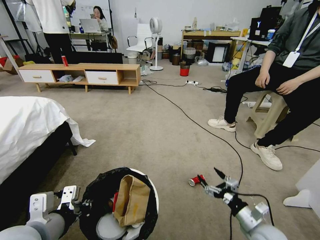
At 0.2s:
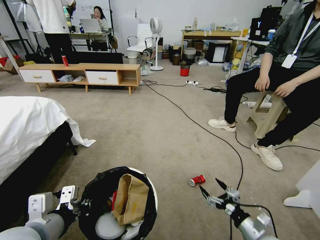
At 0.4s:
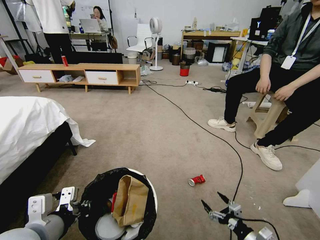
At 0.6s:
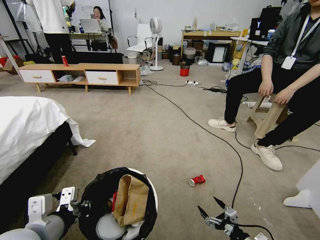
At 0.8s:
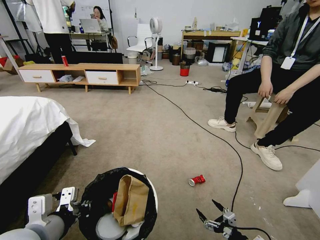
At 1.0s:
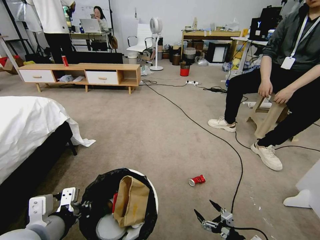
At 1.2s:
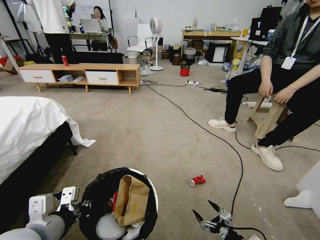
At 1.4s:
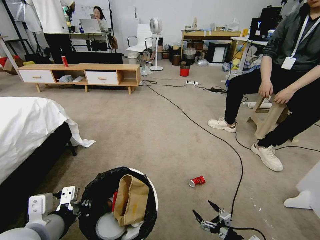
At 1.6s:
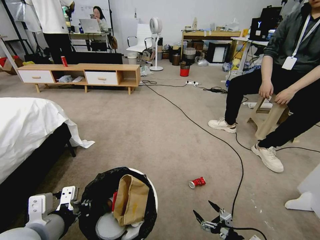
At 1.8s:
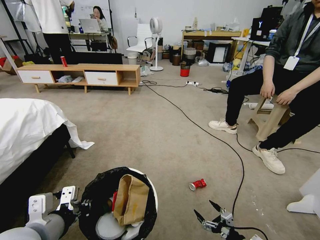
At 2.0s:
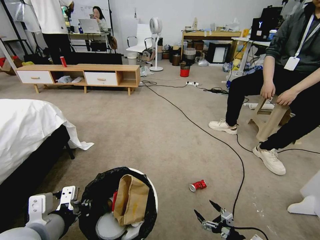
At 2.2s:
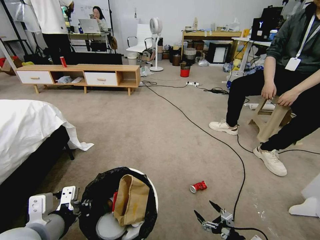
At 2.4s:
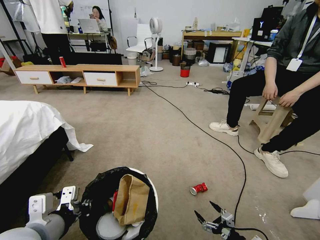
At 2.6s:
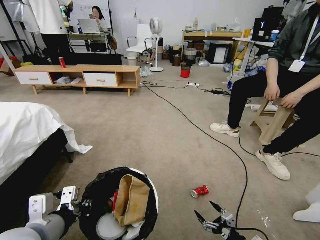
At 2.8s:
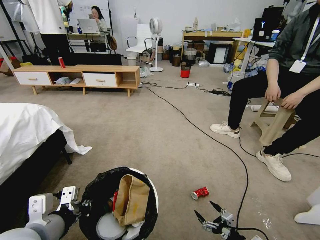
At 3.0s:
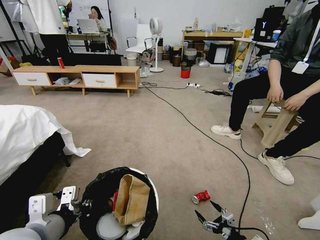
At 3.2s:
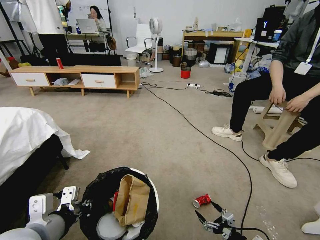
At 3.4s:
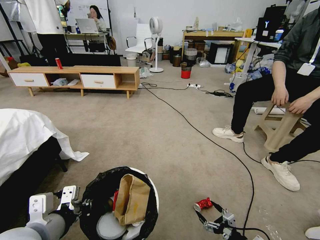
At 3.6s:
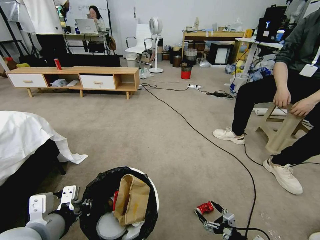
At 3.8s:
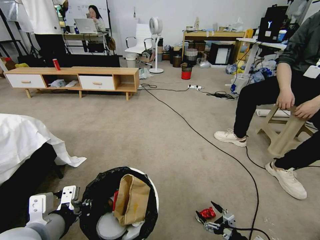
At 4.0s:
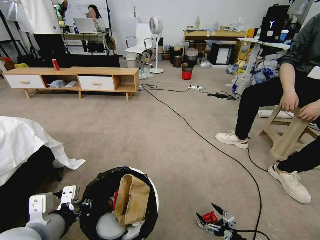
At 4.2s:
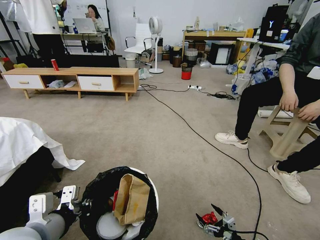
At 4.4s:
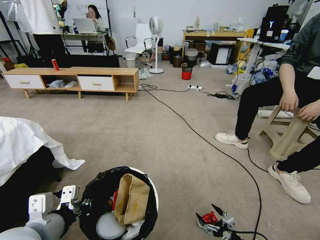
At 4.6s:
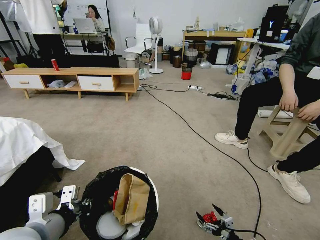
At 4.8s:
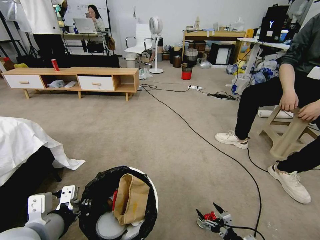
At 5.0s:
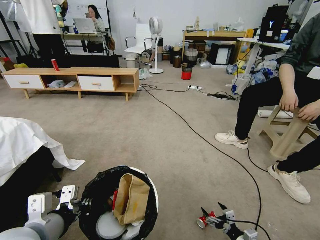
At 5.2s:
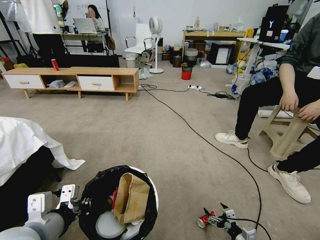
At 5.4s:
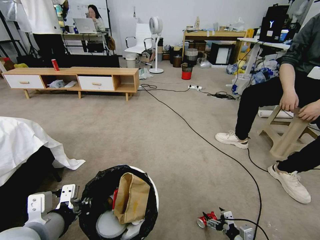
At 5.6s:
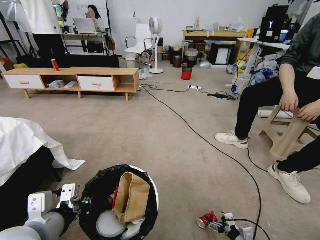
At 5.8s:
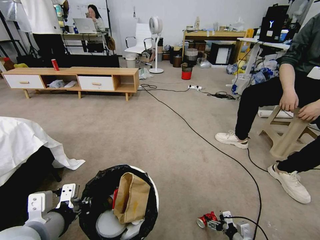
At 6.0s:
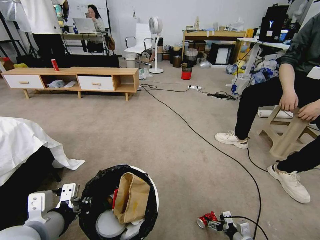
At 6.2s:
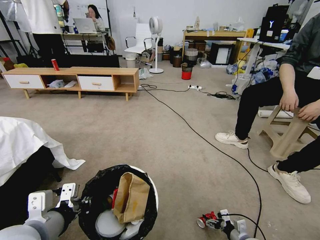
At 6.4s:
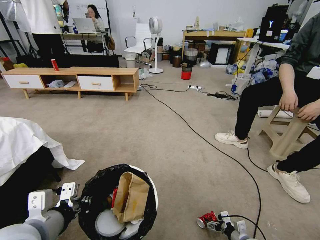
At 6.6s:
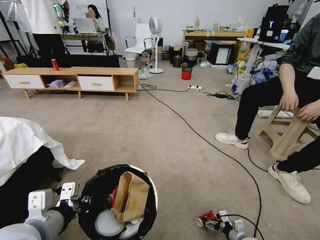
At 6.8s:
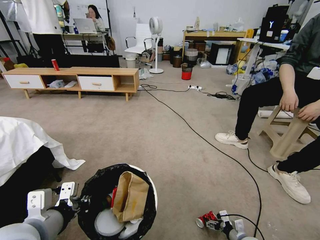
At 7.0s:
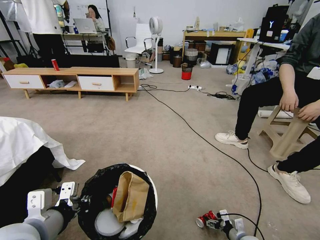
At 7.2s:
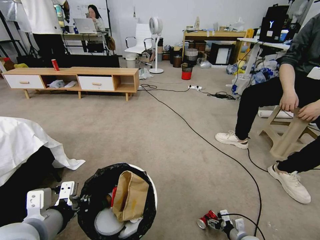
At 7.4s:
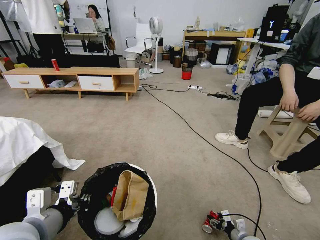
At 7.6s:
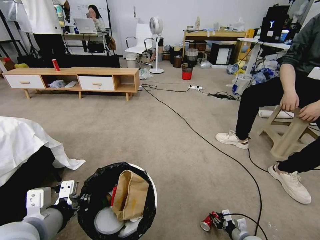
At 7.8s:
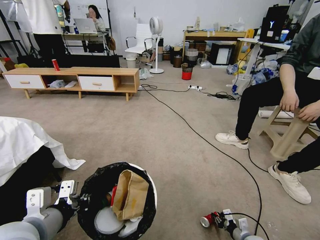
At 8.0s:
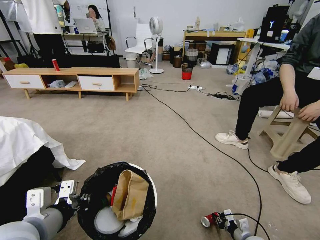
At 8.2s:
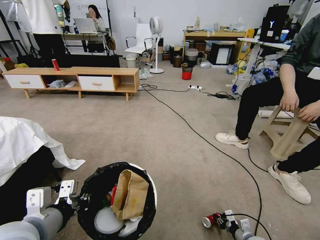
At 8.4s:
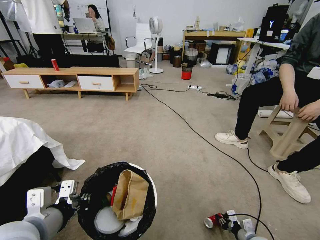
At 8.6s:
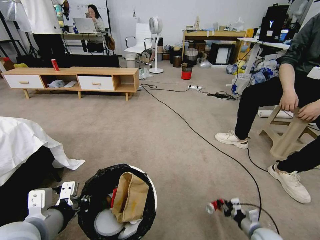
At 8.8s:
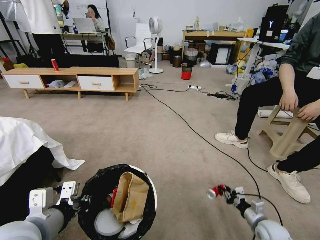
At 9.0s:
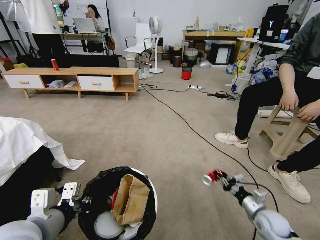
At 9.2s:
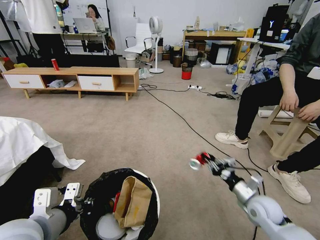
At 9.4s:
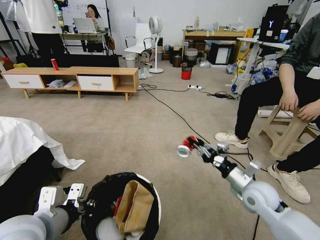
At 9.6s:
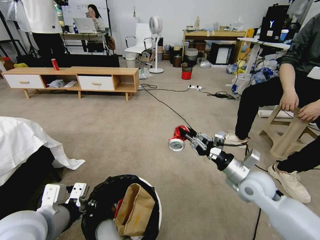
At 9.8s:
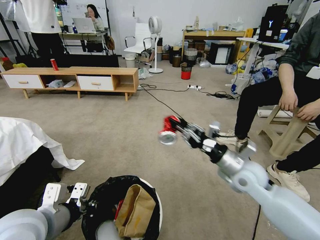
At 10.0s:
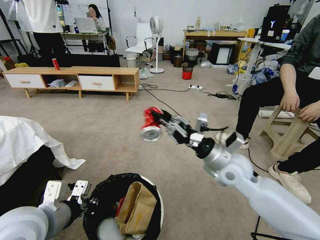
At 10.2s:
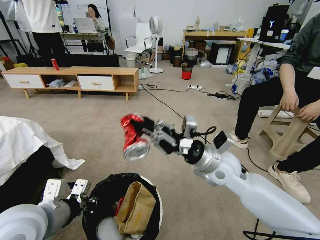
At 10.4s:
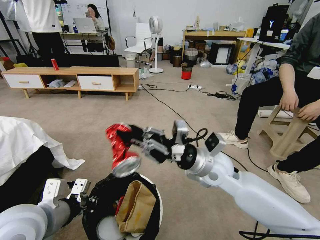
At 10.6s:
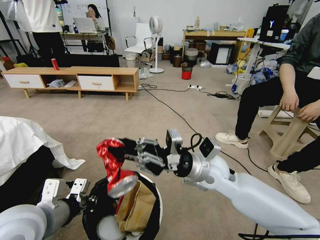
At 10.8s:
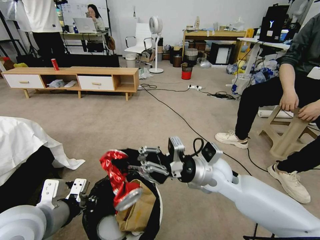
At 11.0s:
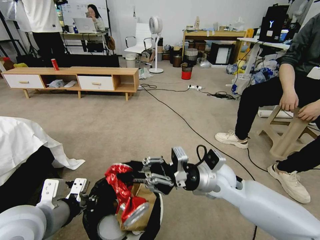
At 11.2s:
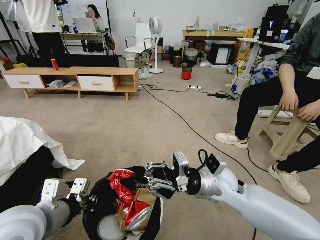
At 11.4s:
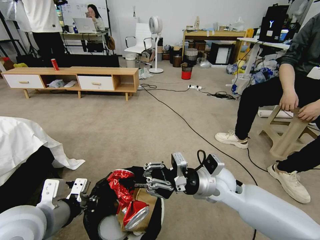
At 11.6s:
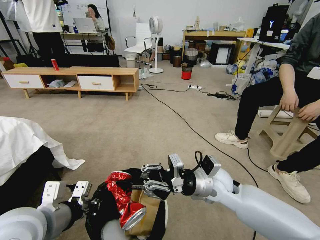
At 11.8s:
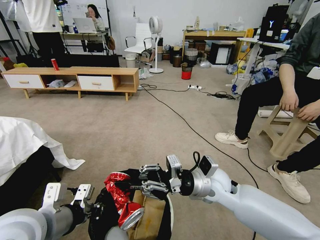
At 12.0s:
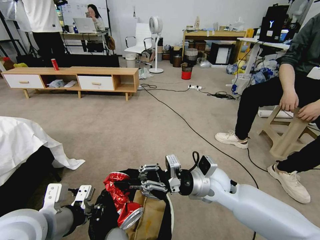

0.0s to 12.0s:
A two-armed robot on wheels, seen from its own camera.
Task of the whole recording: Pick up the trash bin and place the garbage on the floor into it.
0.0s to 1.6s: The right gripper is displaced downward and backward by some 15 cm.
4.4s to 6.0s: The right gripper travels forward by about 5 cm.
6.0s to 7.6s: The right gripper closes up.
7.6s to 9.0s: The right gripper travels upward by some 15 cm.
9.0s to 10.4s: The right gripper shifts some 35 cm upward and to the left.
10.4s to 12.0s: The right gripper travels downward by some 5 cm.

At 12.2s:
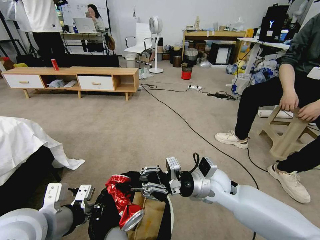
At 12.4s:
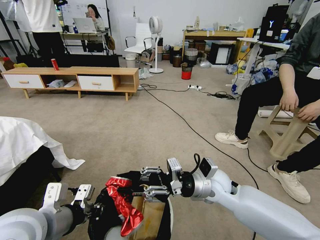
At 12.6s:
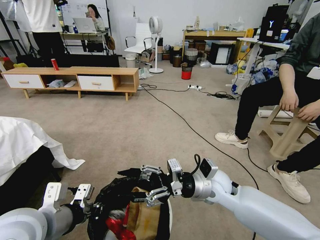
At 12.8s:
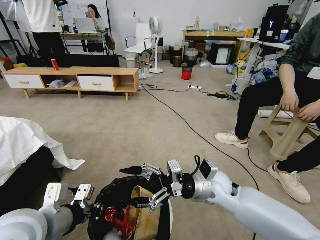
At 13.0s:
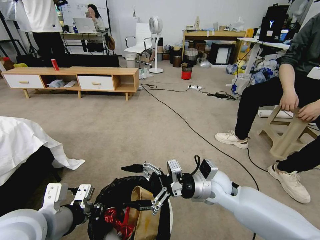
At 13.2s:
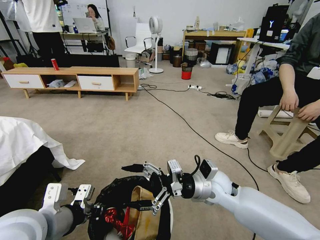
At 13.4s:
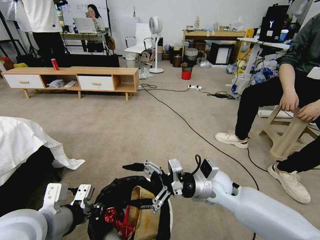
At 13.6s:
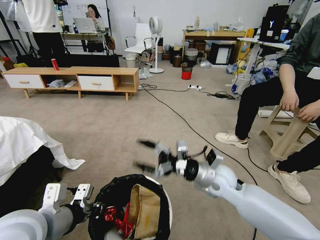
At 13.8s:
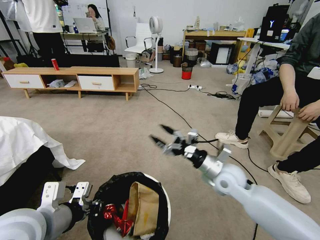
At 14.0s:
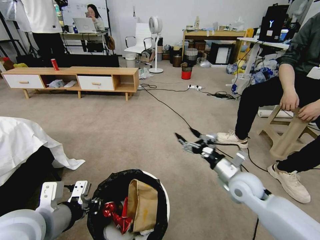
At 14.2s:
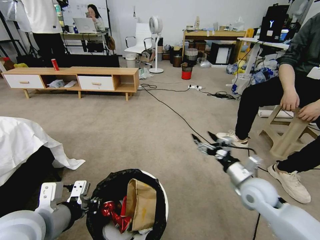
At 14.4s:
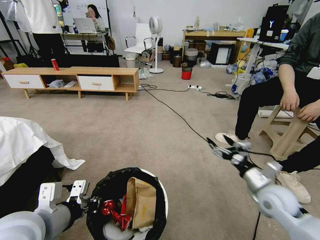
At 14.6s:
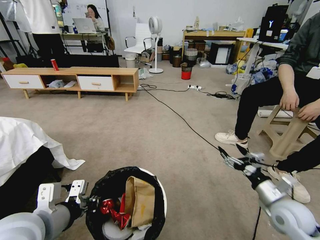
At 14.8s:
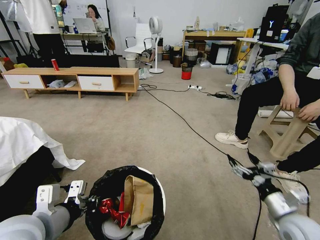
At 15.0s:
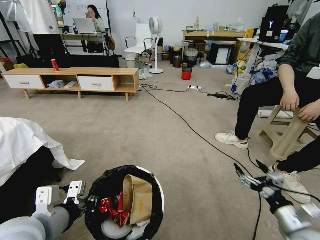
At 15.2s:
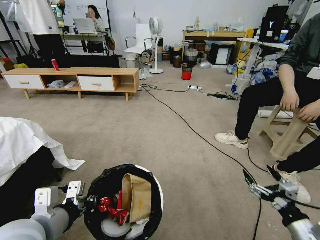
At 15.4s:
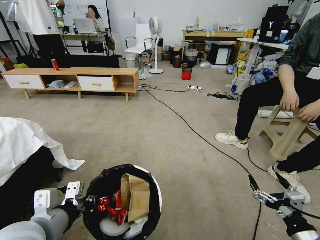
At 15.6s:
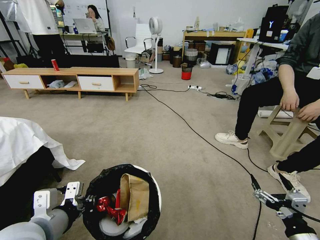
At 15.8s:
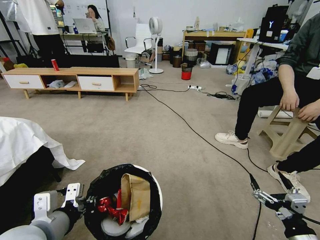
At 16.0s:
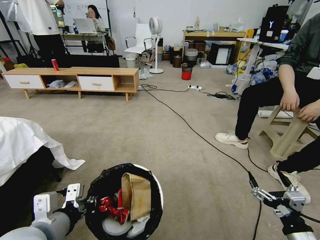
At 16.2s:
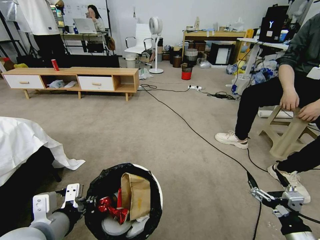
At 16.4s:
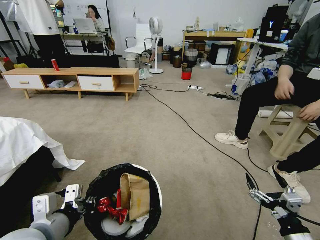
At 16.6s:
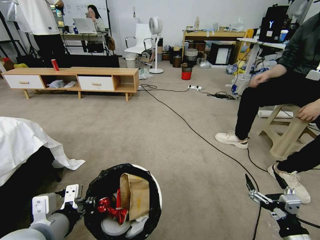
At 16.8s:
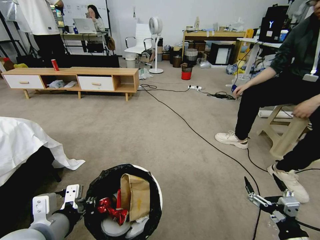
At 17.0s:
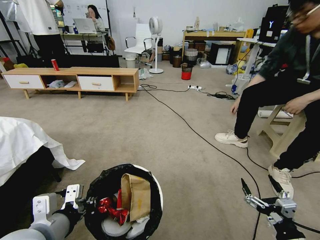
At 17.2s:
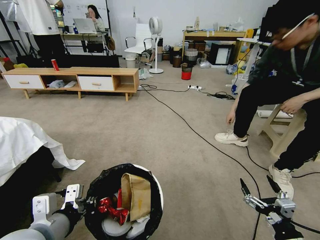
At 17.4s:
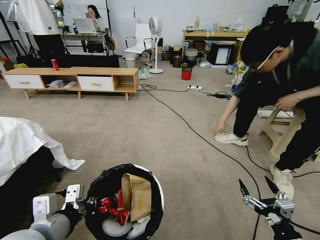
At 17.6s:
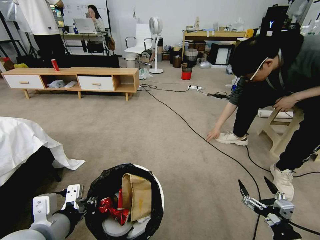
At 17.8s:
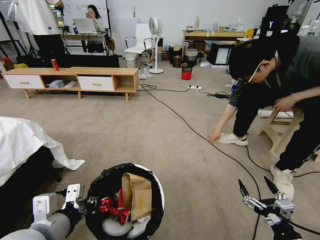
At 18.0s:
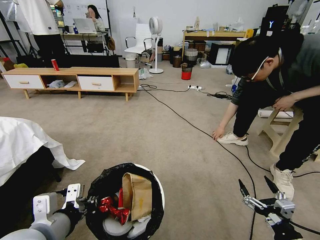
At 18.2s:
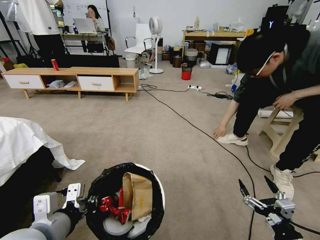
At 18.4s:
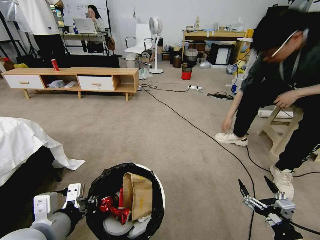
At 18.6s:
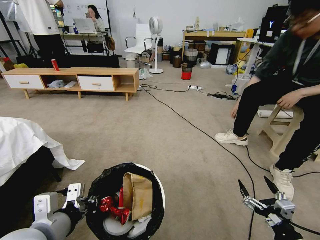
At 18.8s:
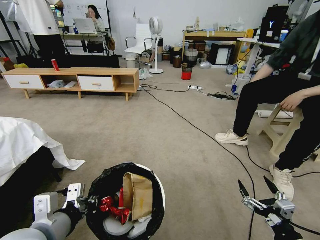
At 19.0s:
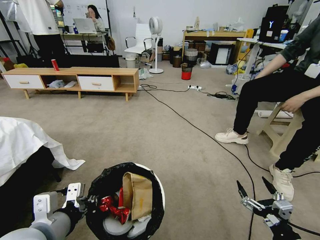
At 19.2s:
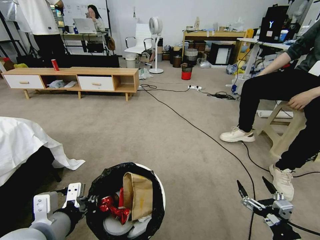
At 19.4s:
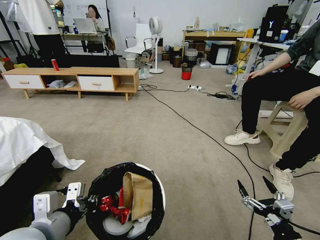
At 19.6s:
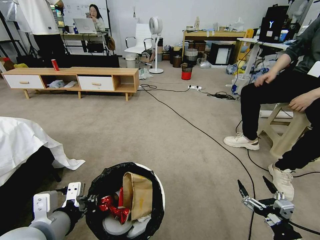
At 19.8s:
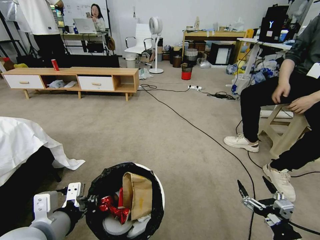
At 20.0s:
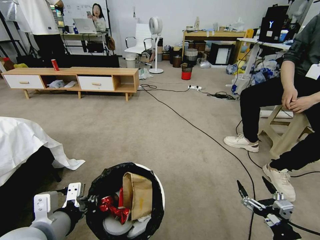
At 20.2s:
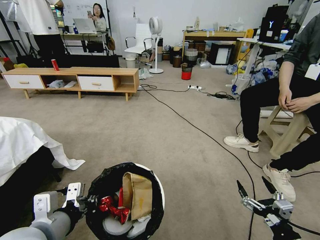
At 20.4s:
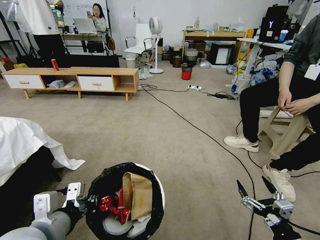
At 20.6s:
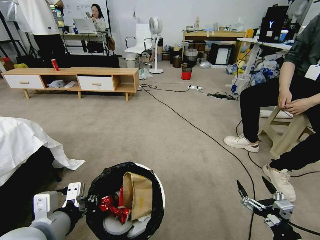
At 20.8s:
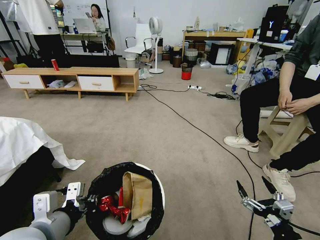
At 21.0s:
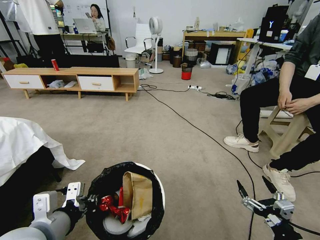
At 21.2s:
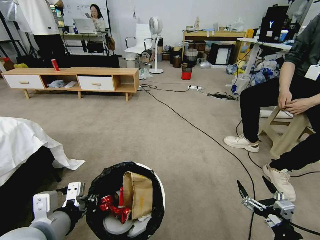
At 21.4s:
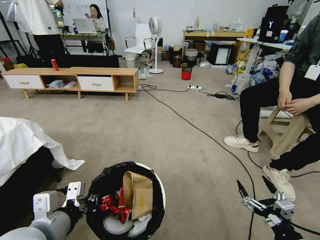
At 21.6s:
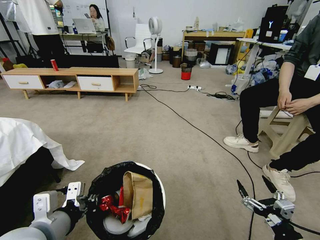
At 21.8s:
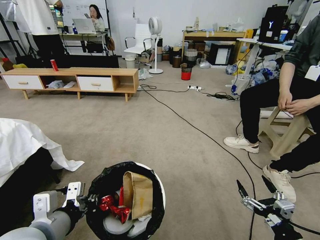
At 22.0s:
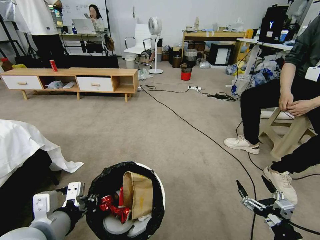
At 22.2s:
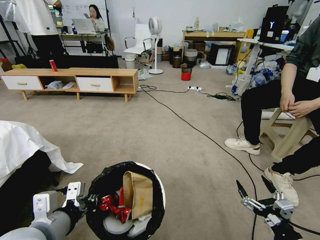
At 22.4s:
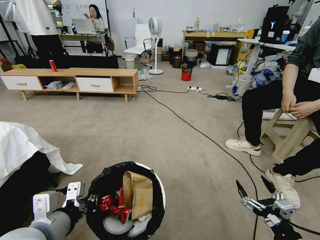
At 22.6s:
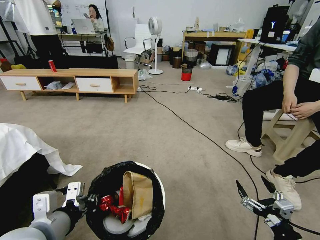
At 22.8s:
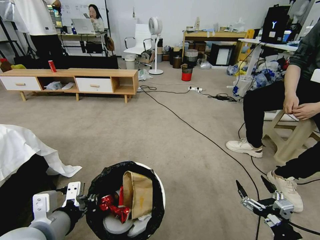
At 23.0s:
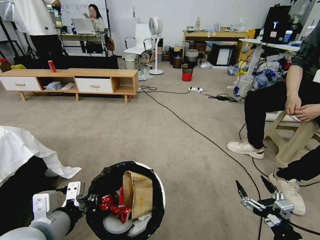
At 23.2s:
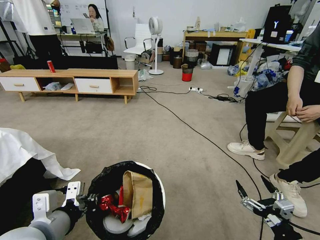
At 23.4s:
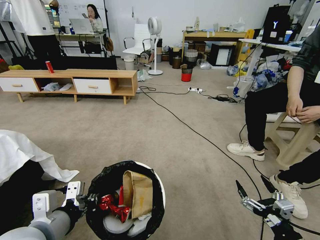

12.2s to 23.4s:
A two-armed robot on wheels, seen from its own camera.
Task of the whole recording: Pick up the trash bin and place the garbage on the floor into it.
12.2s to 13.8s: The right gripper moves to the right, approximately 5 cm, and opens up.
13.8s to 15.4s: The right gripper heads backward and to the right, covering roughly 30 cm.
15.4s to 18.6s: There are only small adjustments of the grippers.
18.6s to 21.8s: Both grippers stay put.
